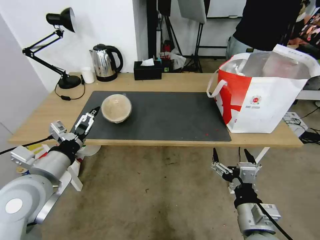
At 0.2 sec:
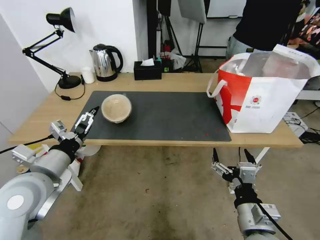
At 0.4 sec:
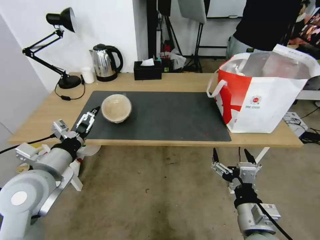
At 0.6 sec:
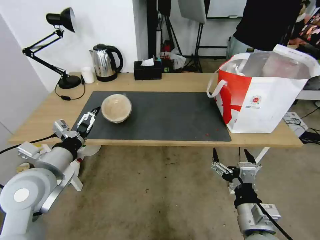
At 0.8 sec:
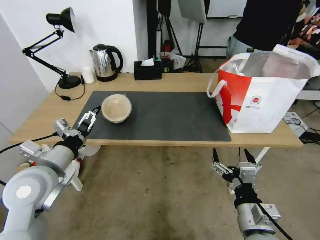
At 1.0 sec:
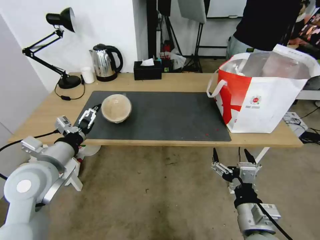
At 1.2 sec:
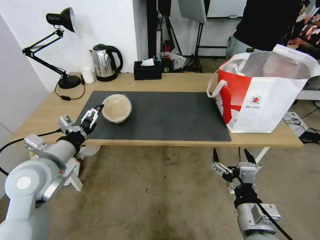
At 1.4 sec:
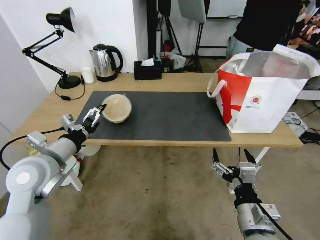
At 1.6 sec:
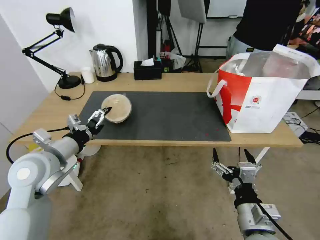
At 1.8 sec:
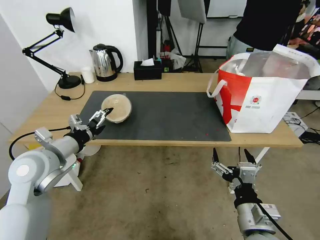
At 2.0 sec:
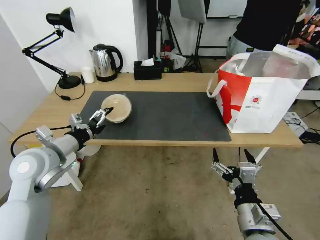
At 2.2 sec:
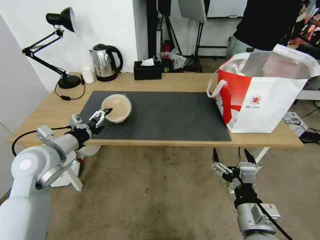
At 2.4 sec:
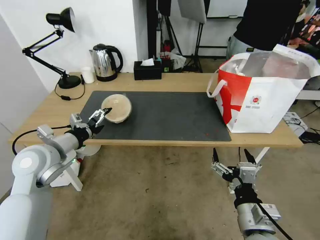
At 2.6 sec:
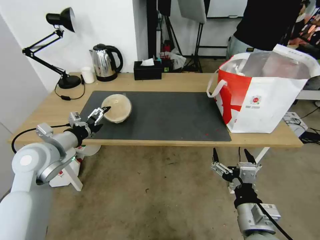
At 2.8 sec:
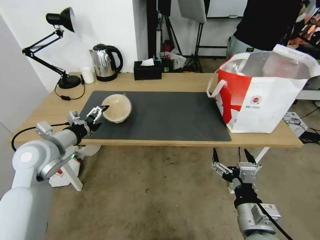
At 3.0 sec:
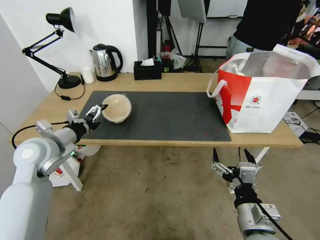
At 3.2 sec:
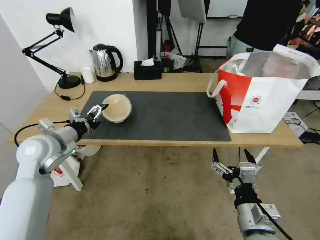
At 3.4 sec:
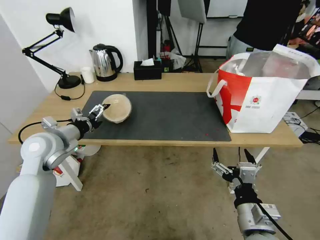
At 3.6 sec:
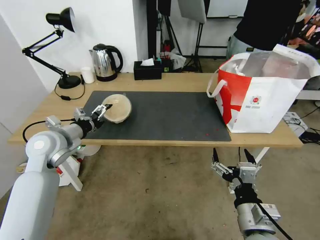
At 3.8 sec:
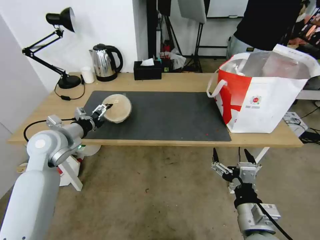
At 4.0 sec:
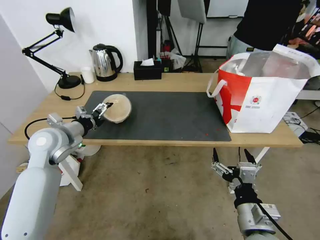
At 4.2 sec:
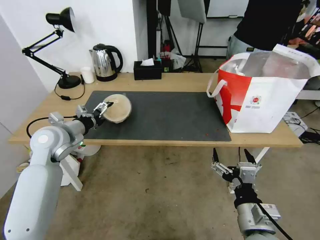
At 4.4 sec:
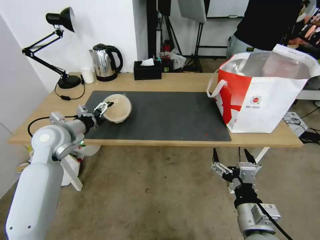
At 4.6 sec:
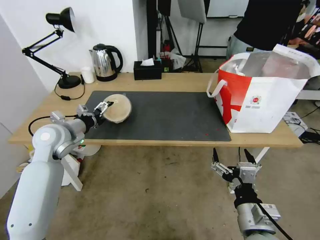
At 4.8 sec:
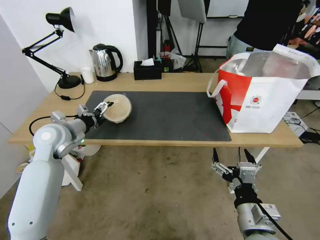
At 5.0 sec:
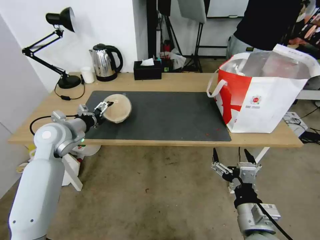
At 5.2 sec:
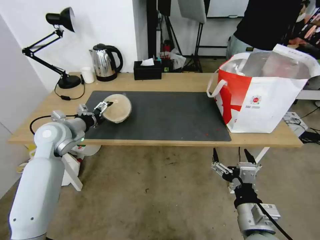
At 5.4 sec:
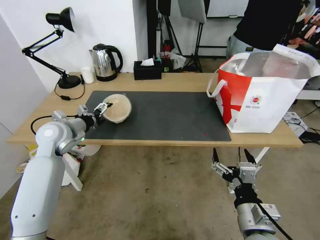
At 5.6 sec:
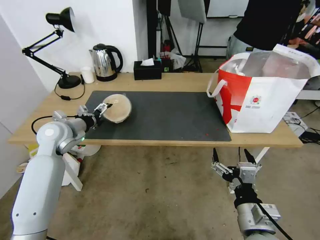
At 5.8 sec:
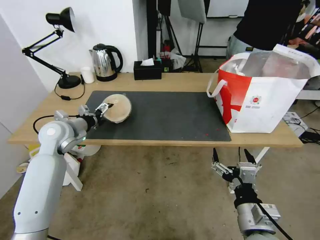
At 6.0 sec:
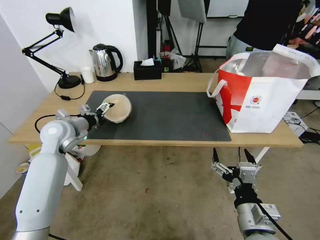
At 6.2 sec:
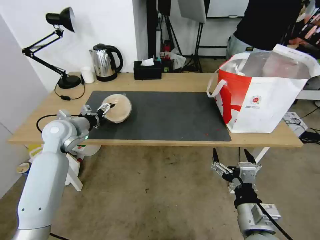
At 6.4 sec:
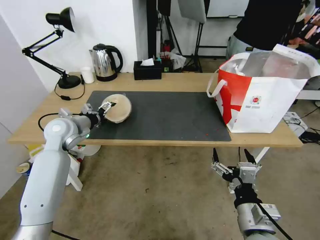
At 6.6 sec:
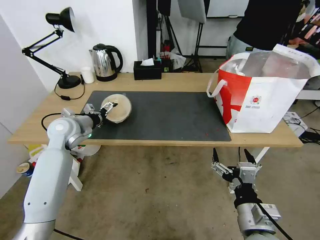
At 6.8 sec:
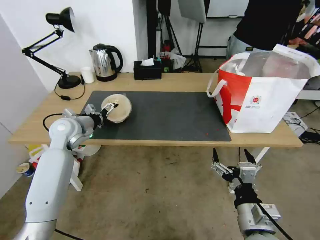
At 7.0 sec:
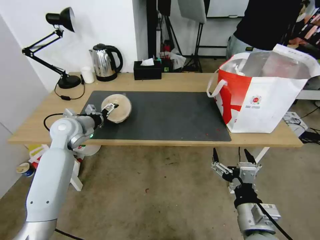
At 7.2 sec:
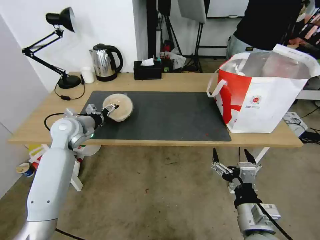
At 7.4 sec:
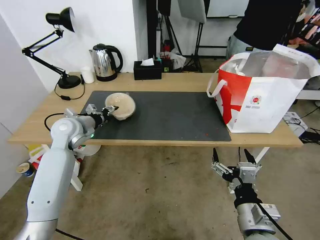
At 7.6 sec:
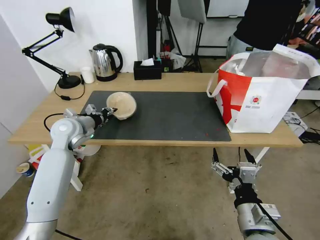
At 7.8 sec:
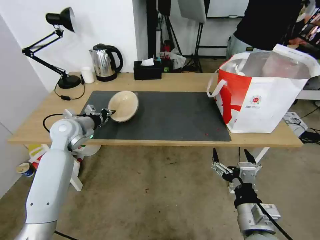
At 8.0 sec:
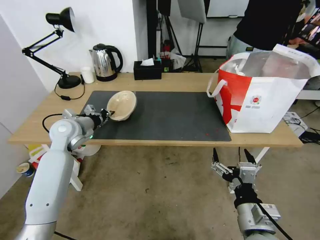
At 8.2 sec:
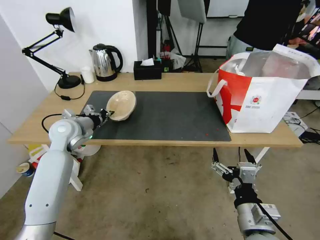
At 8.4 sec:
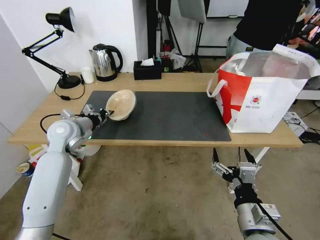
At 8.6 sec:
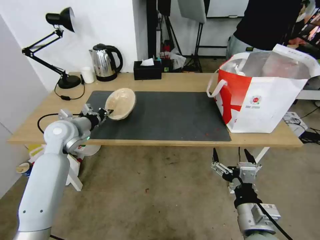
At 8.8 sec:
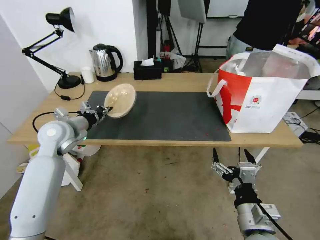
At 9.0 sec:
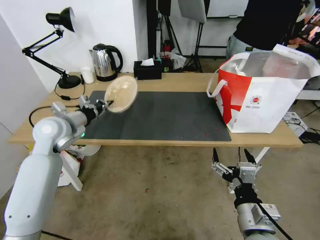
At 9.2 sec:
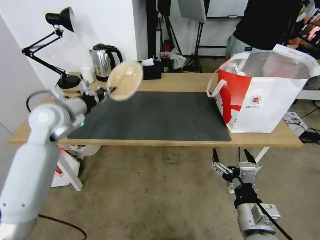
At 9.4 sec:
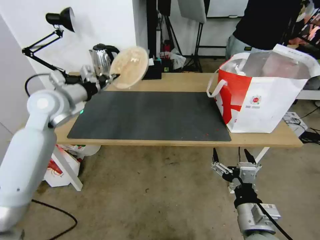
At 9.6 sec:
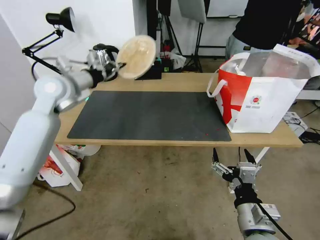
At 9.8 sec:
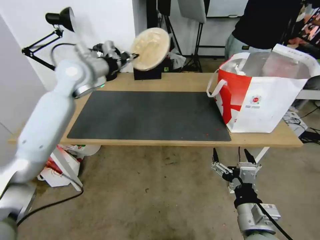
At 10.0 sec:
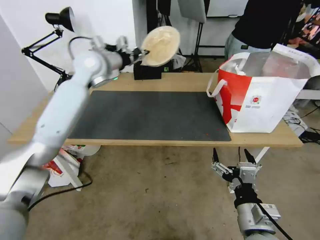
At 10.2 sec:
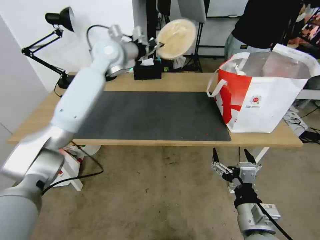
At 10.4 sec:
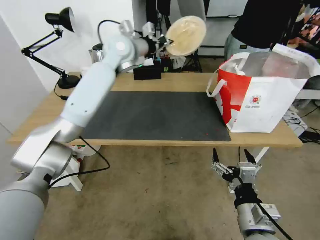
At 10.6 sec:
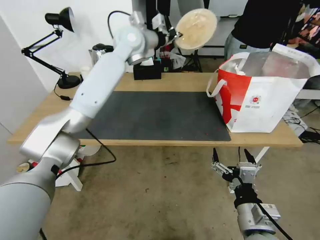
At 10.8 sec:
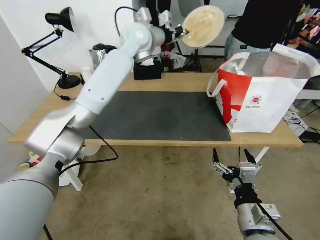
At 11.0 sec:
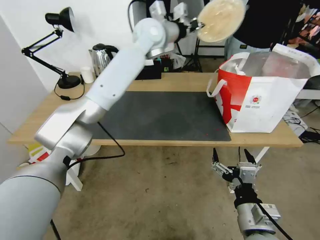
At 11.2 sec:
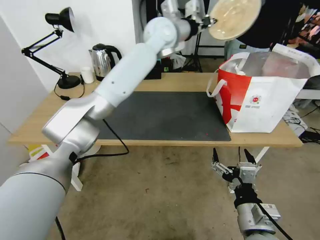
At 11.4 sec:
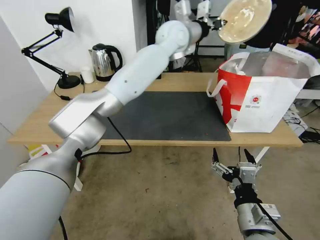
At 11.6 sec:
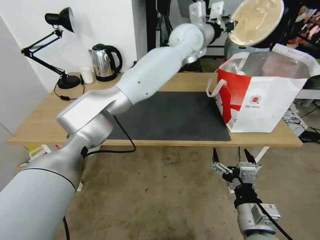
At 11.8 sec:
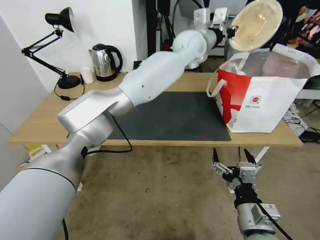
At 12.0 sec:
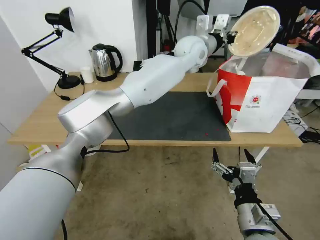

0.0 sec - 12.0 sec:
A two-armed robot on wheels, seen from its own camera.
Task of the whole recording: Pick up the trash from the table and place it into the takeout bag.
0.0 sec - 1.6 sec: The left gripper shifts some 5 cm forward.
1.6 sec - 3.0 sec: The left gripper changes place by approximately 5 cm.
3.0 sec - 4.4 sec: The left gripper goes approximately 5 cm forward.
4.4 sec - 6.0 sec: The grippers stay close to where they were, moving slightly.
6.0 sec - 7.6 sec: The left gripper closes.
7.6 sec - 9.0 sec: The left gripper moves about 5 cm, and closes up.
9.0 sec - 10.4 sec: The left gripper goes about 30 cm to the right, forward and upward.
10.4 sec - 12.0 sec: The left gripper moves to the right, approximately 20 cm.

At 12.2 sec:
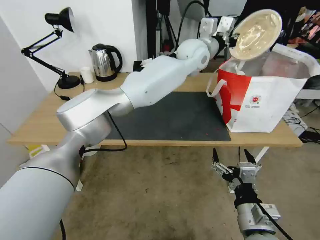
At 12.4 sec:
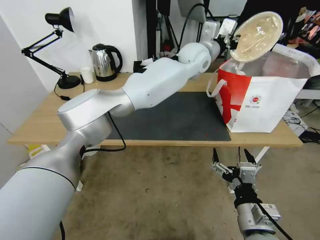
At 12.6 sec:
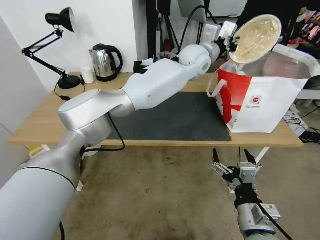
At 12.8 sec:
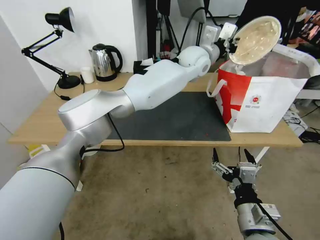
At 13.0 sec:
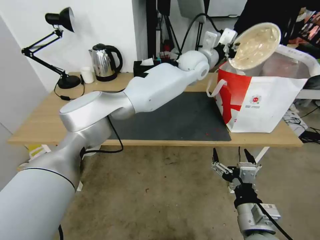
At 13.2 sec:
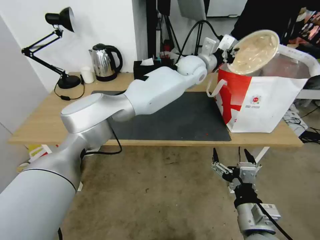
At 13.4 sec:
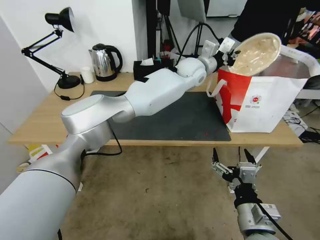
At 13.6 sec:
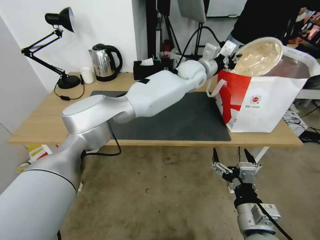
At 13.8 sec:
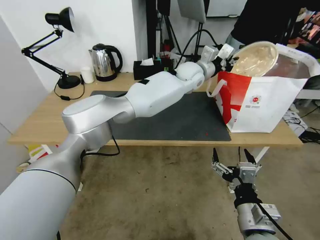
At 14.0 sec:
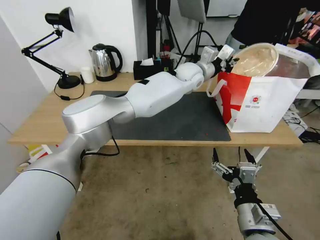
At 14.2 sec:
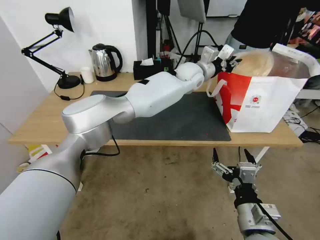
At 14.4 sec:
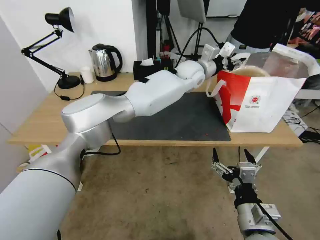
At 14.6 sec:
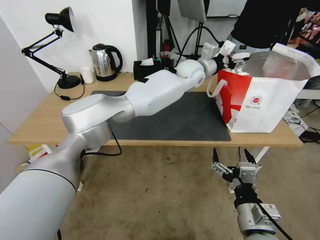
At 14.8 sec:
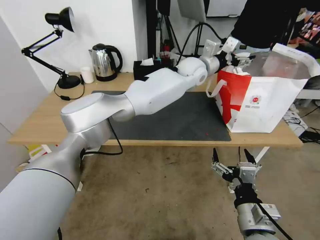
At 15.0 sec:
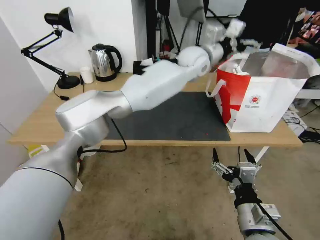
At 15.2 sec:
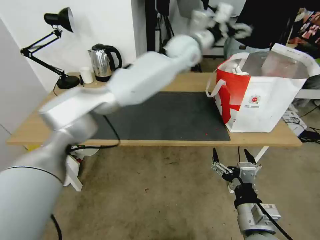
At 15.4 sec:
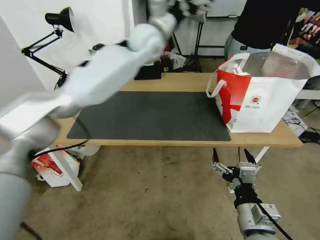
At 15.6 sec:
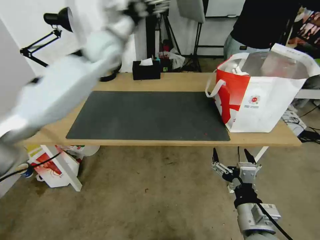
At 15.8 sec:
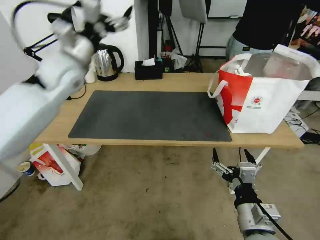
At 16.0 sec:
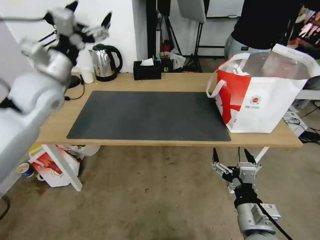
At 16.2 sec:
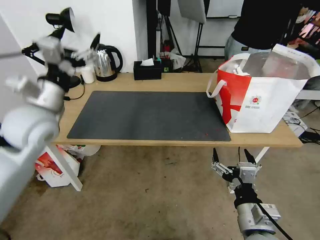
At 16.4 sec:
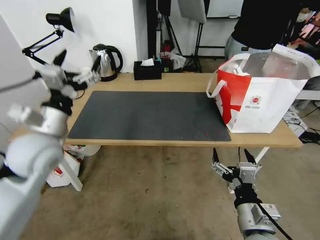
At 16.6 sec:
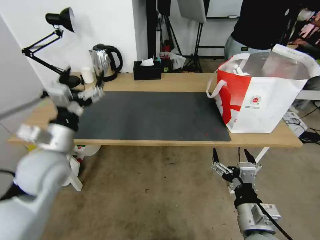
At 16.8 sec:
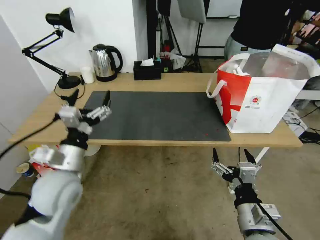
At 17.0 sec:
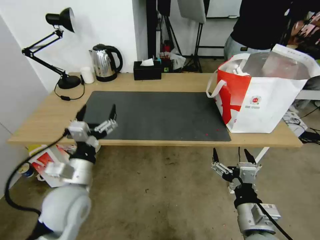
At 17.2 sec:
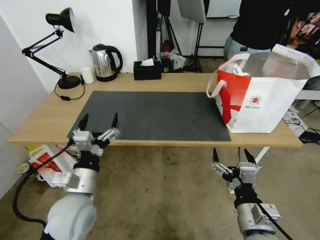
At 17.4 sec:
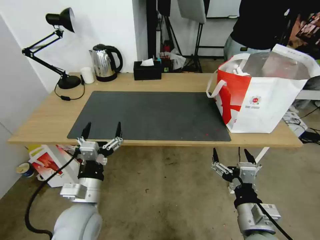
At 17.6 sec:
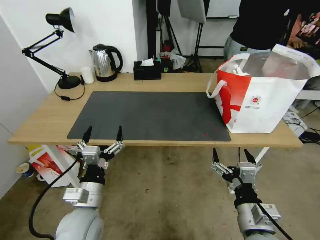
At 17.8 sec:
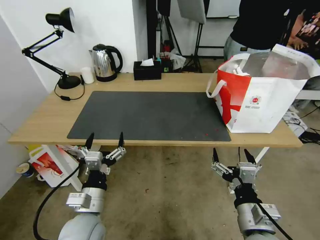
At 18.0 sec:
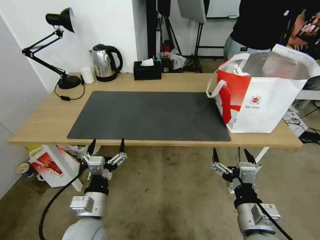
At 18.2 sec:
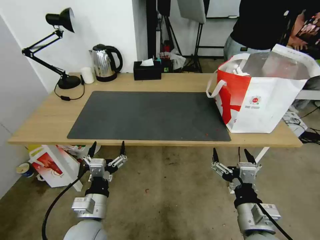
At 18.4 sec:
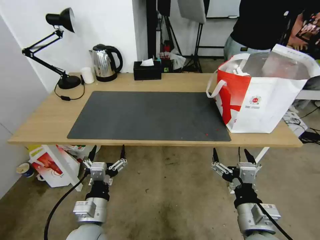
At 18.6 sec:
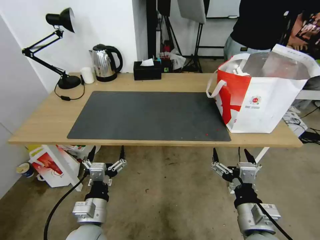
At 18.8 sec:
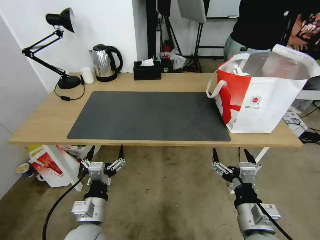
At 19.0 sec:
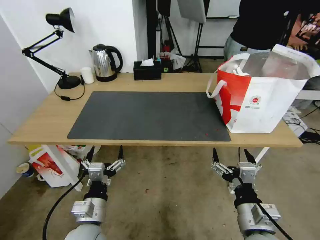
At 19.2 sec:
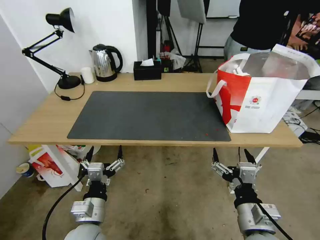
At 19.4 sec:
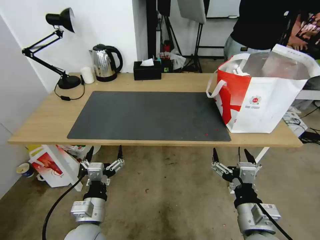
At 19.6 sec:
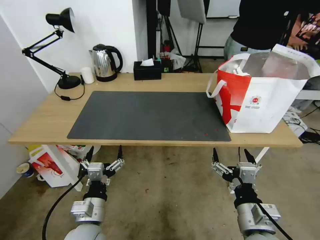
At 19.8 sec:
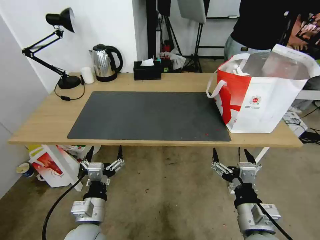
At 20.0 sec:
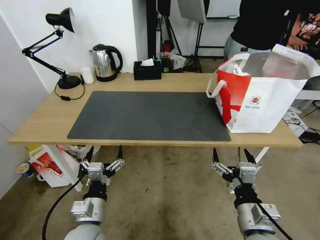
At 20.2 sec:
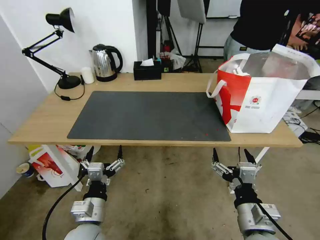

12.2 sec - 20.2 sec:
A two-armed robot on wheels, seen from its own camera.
Task of the whole recording: Pick up the trash from the table and place it into the takeout bag.
12.2 sec - 13.8 sec: The left gripper shifts about 10 cm downward.
13.8 sec - 15.4 sec: The left gripper moves to the left and upward, approximately 20 cm, and opens.
15.4 sec - 17.0 sec: The left gripper goes roughly 50 cm backward, downward and to the left.
17.0 sec - 18.6 sec: The left gripper travels downward and backward by some 10 cm.
18.6 sec - 20.2 sec: Both grippers stay put.
